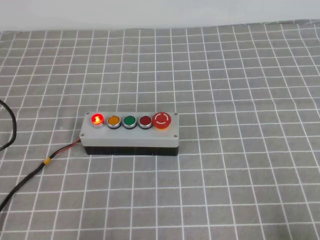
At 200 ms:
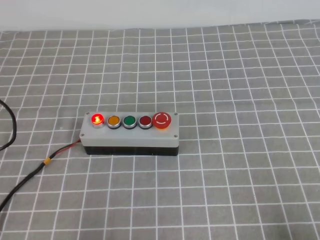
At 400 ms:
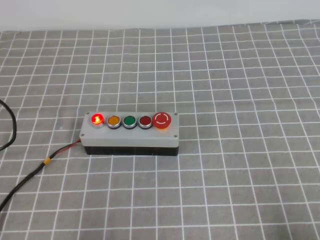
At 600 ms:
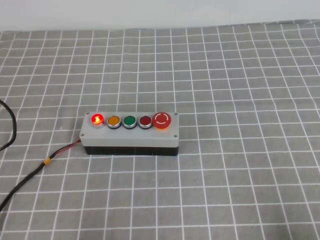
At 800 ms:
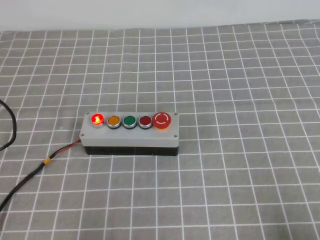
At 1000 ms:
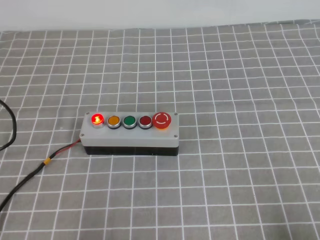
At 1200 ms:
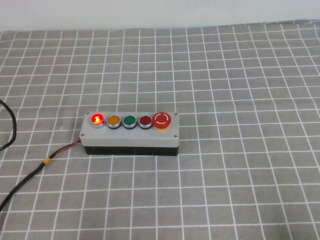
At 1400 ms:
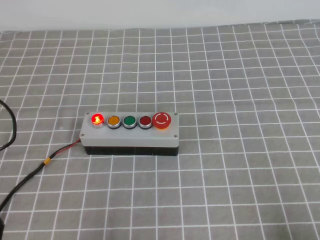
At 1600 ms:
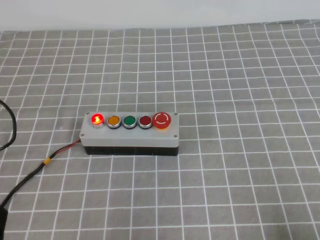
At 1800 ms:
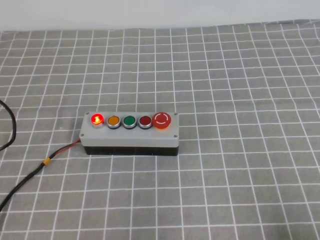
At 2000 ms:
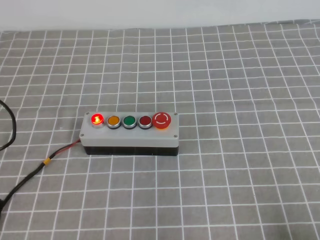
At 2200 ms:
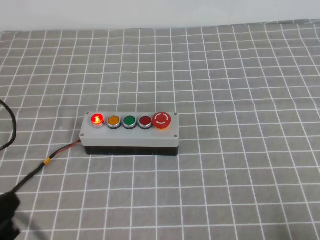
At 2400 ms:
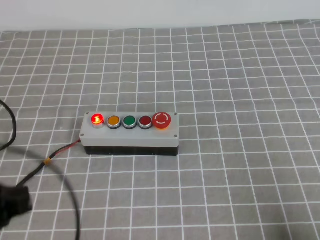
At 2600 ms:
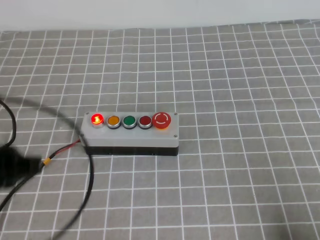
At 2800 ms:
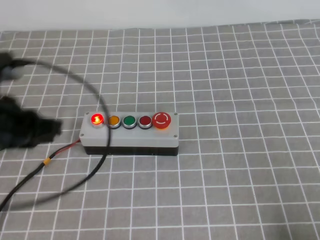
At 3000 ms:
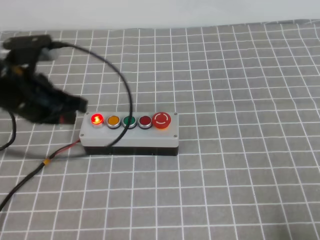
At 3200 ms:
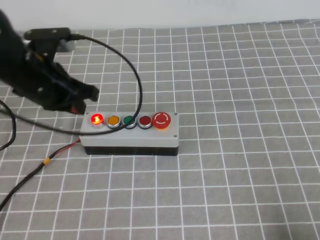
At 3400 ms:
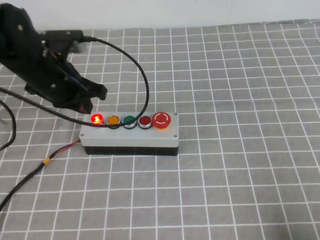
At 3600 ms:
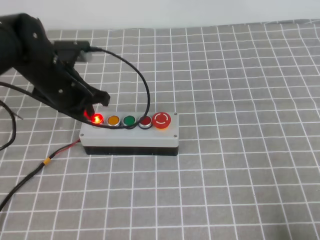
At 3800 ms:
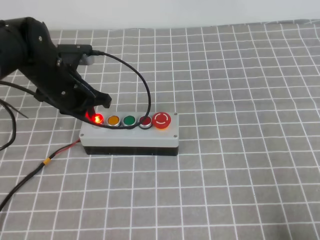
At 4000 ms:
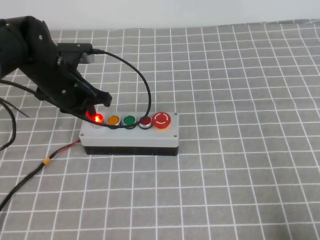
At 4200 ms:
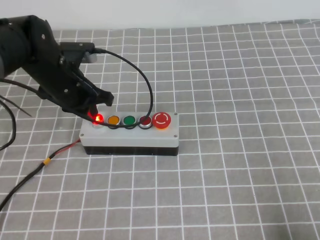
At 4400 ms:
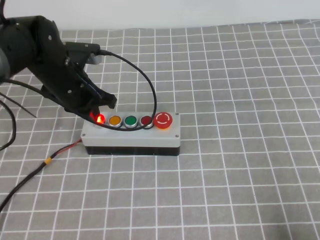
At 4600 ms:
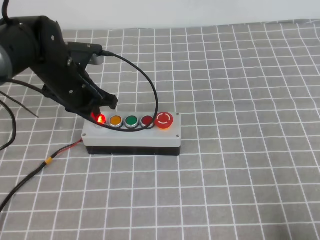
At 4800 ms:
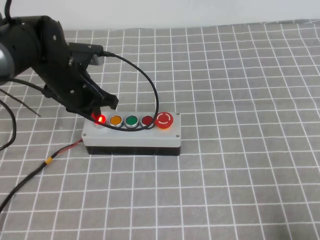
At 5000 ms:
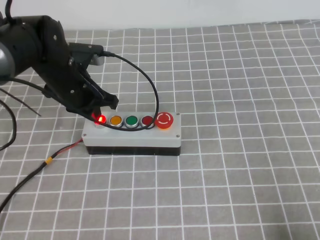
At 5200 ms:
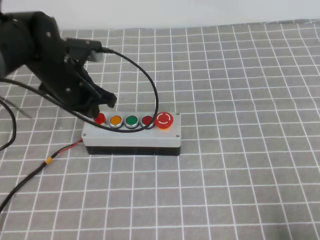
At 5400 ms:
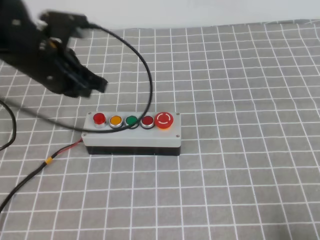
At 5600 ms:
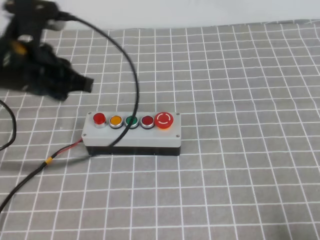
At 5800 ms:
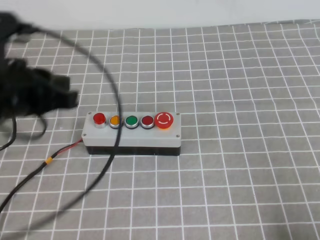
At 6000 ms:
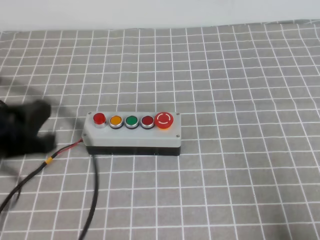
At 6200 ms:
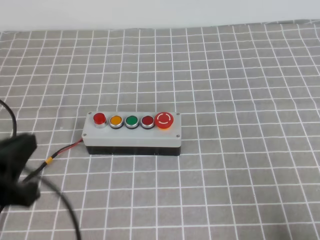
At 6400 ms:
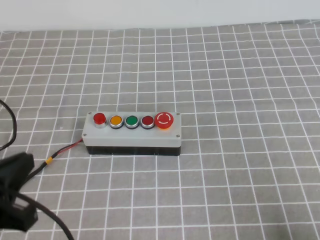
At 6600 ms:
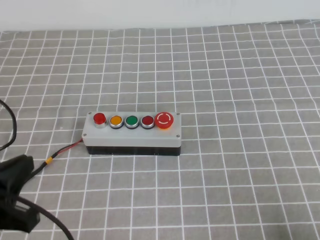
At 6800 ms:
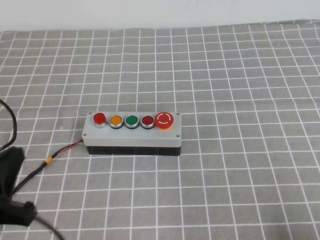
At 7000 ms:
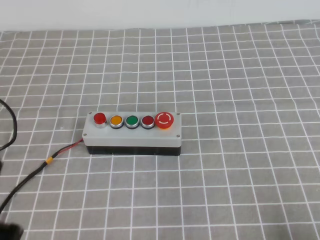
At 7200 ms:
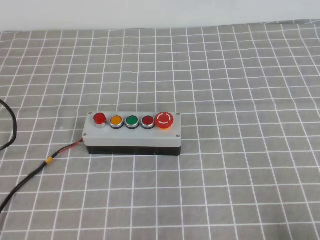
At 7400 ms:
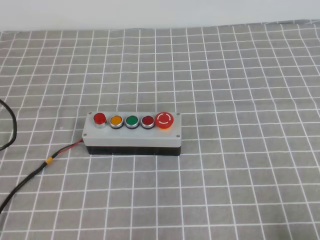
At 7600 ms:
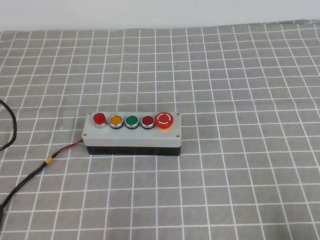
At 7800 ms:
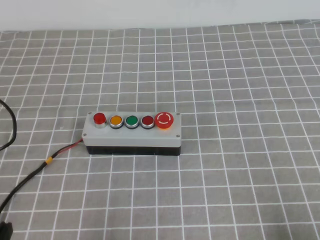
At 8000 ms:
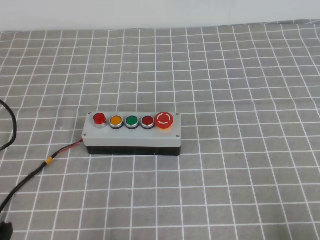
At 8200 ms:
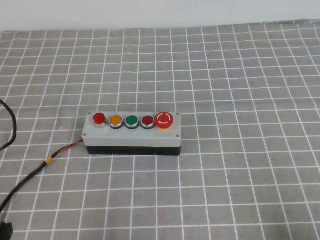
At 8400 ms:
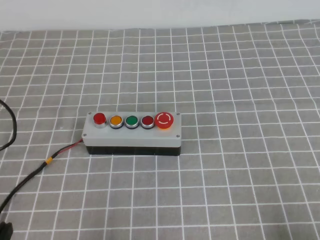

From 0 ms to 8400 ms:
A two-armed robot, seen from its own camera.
Task of the whole recording: press the button switch on the grey tablecloth with the left gripper to turn off the button.
Step, from 0 ms to 8400 ms: Press the button to turn off.
From 1400 ms to 2800 ms: The left gripper goes approximately 20 cm upward and forward.
From 2800 ms to 4200 ms: The left gripper shifts some 20 cm forward.
From 4200 ms to 5600 ms: The left gripper moves upward and backward, about 10 cm.
From 5600 ms to 7000 ms: The left gripper travels backward by approximately 20 cm.
From 7000 ms to 8400 ms: The left gripper goes approximately 10 cm downward.
